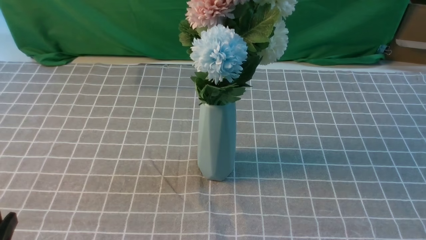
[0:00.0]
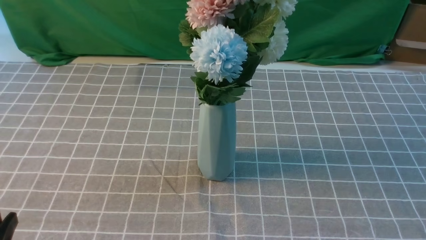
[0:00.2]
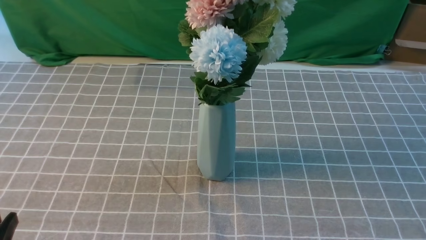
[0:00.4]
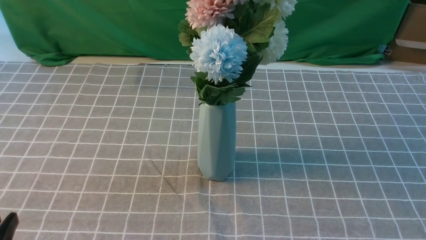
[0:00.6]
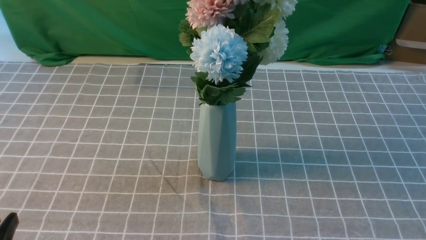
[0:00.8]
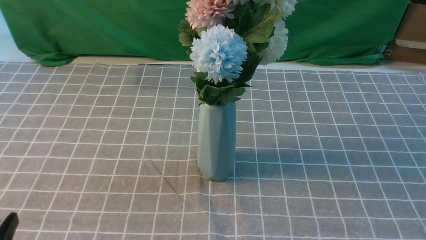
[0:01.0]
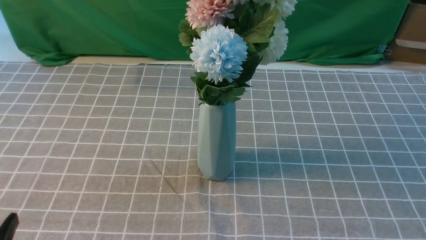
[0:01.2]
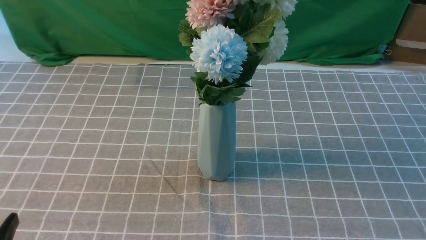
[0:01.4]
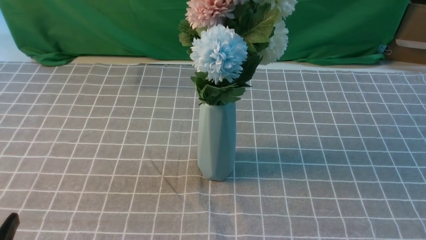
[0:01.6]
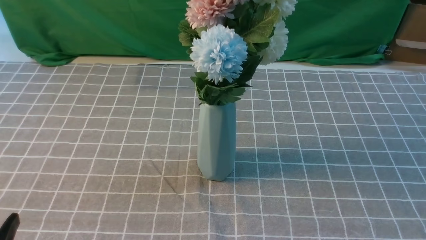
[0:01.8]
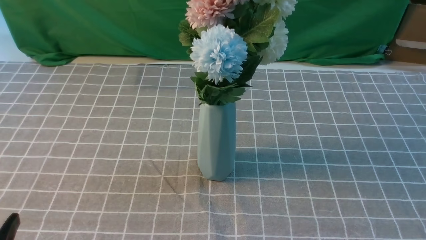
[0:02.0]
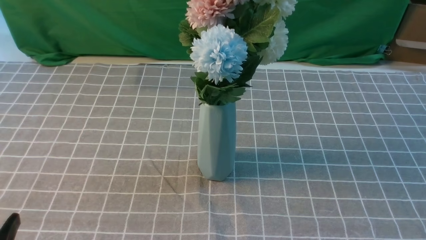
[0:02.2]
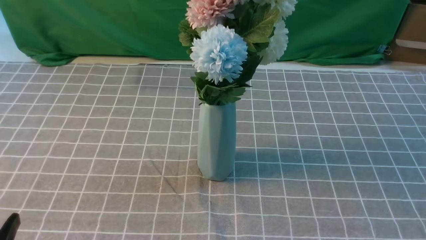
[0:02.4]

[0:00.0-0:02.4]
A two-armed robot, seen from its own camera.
Task of the whole recording: insert the flowers into the vase on the table with the grey tablecloth.
0:01.2 to 0:02.4: The two grippers keep their place.
